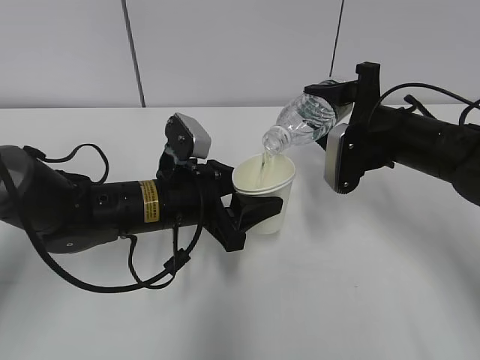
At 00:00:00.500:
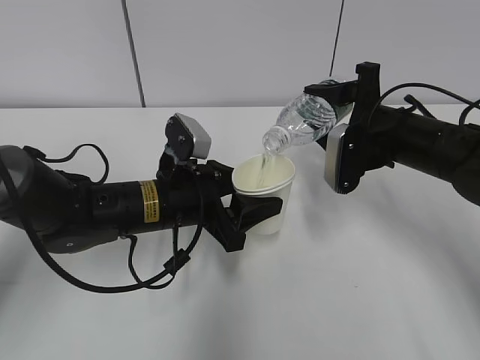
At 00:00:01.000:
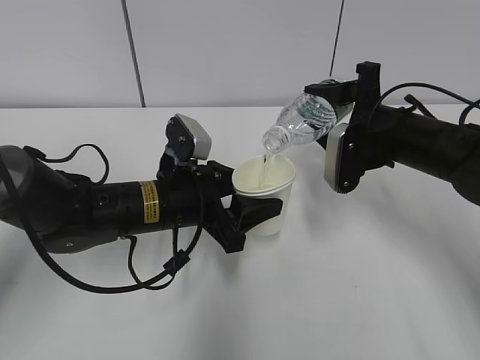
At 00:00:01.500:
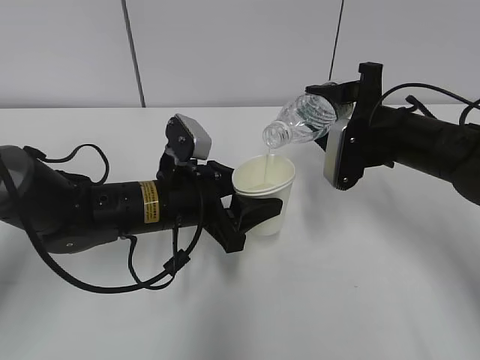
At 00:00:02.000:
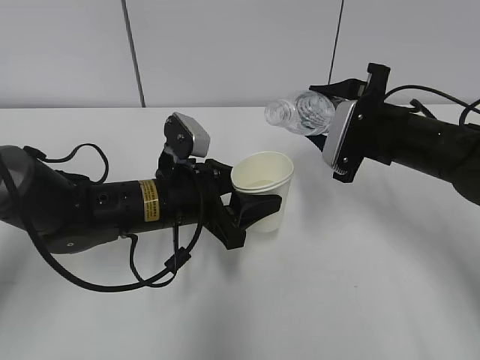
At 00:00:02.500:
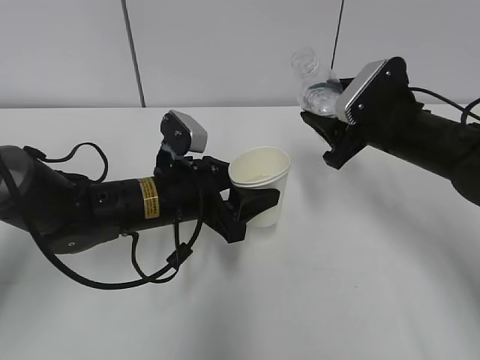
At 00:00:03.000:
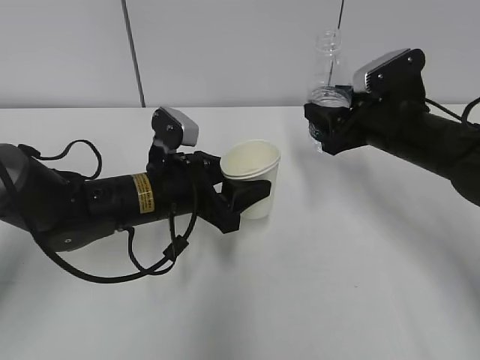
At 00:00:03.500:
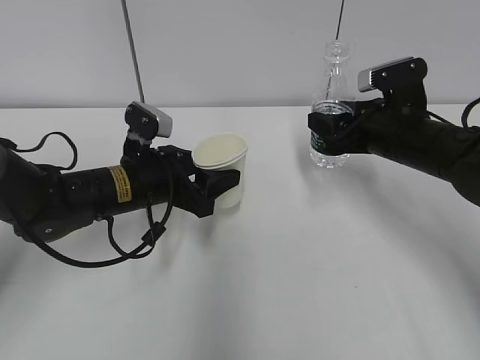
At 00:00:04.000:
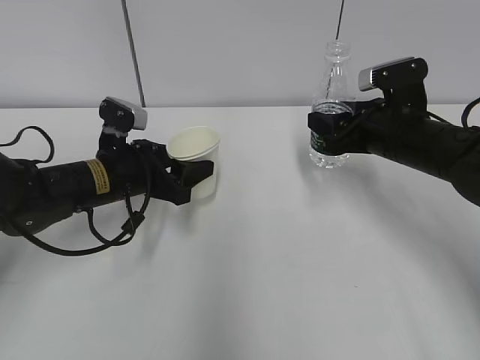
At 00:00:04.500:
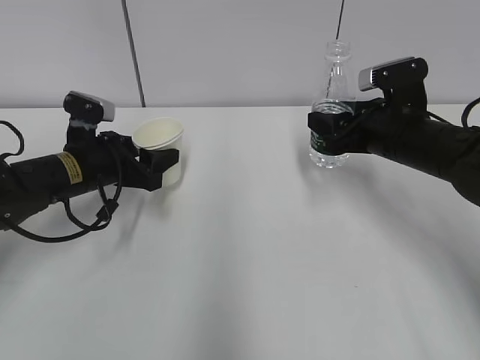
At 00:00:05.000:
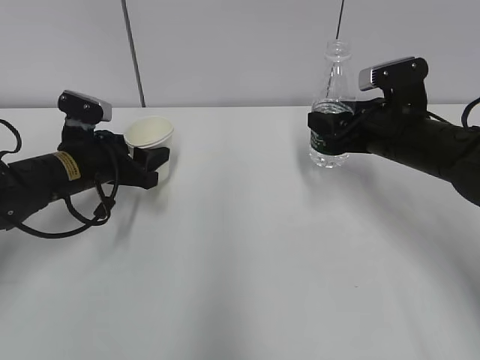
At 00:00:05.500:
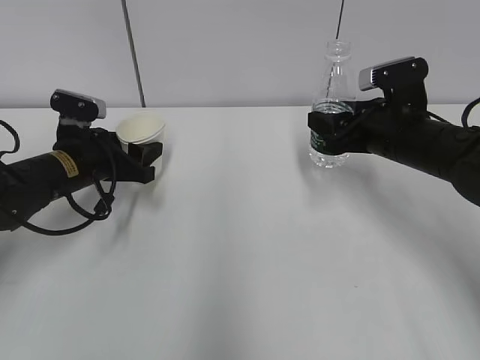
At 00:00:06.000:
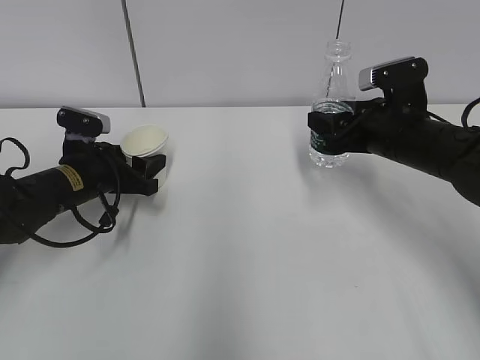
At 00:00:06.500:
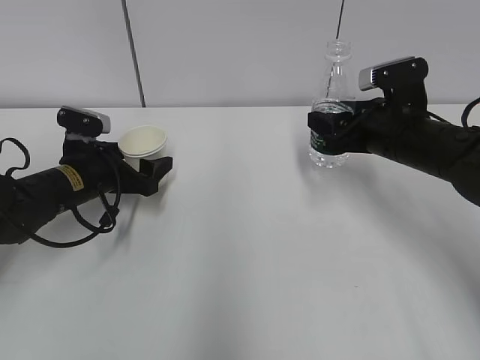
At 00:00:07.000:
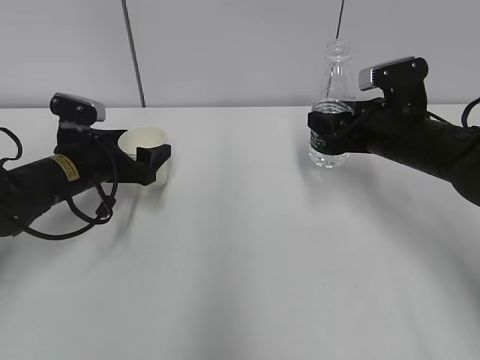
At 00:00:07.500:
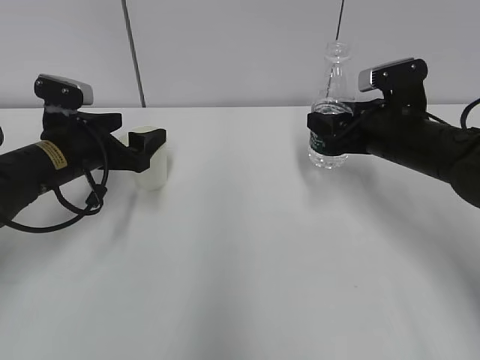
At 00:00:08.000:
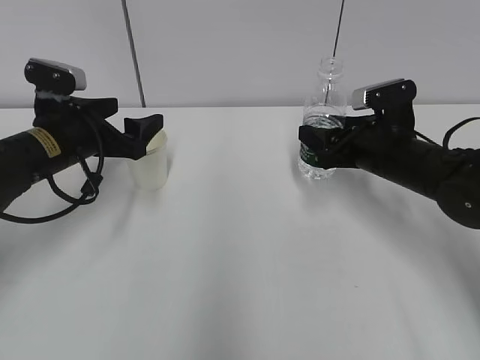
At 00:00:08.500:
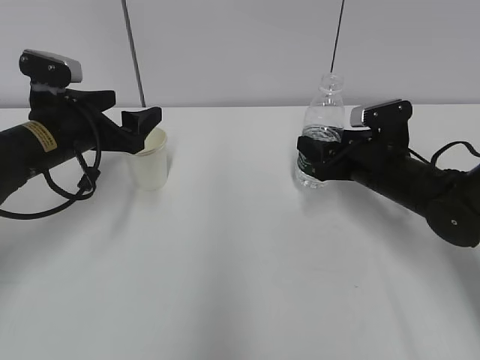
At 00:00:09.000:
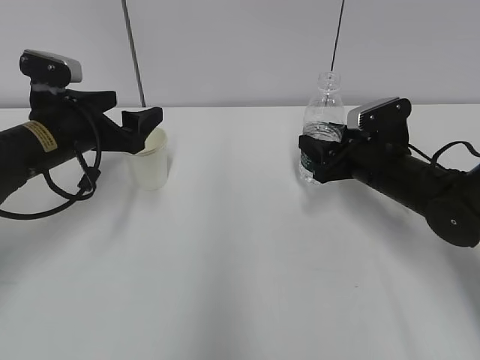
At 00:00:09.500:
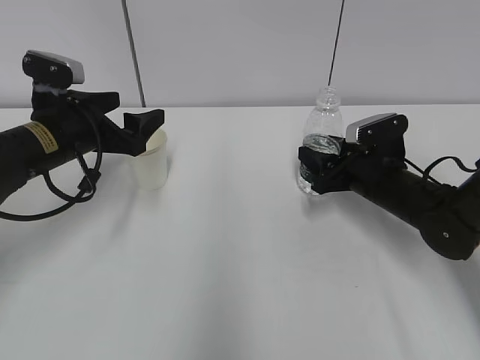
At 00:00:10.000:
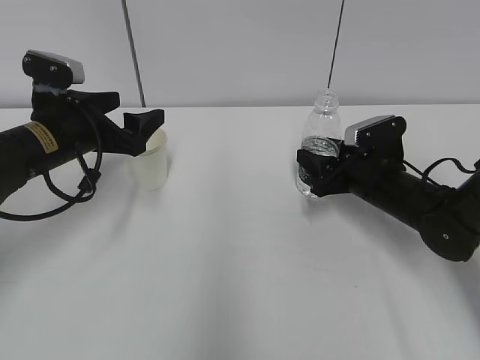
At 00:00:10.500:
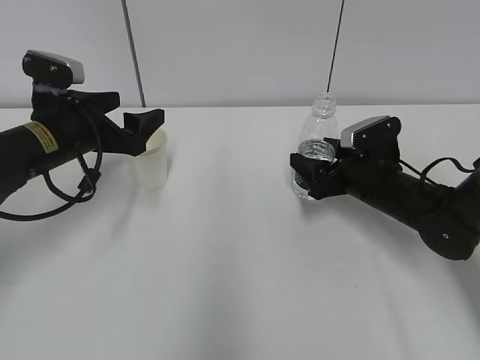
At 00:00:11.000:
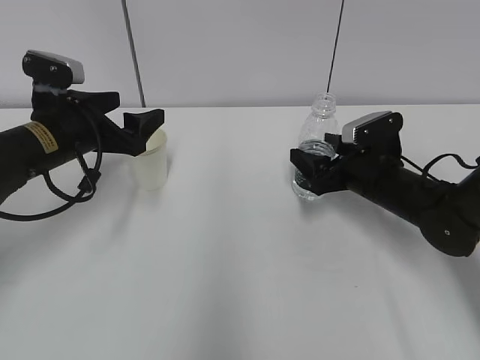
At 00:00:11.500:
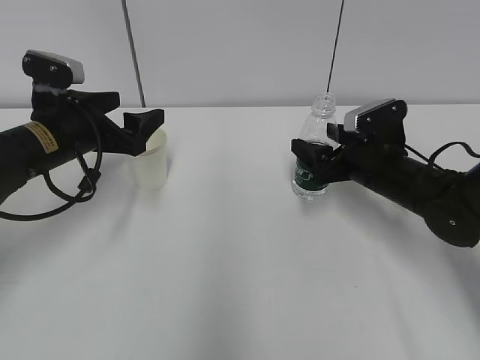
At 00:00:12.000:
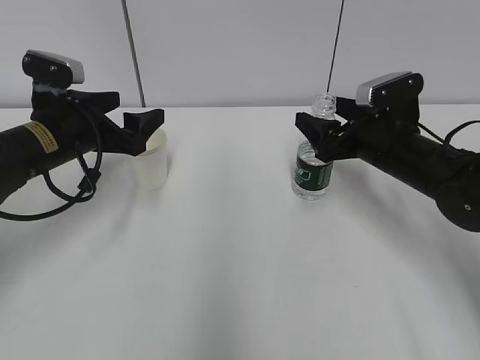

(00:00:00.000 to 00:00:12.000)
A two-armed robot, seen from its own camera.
Step, 00:00:00.500 - 00:00:03.500: Place the water bottle with the right hand.
00:00:00.000 - 00:00:02.000: The grippers stay close to where they were, moving slightly.
00:00:02.000 - 00:00:04.000: The left gripper shifts some 5 cm to the left.
00:00:04.000 - 00:00:06.000: The left gripper heads to the left, covering some 5 cm.
00:00:06.000 - 00:00:08.000: The left gripper heads upward, covering some 5 cm, and opens up.
00:00:08.000 - 00:00:10.000: The right gripper is displaced downward by approximately 5 cm.
00:00:10.000 - 00:00:12.000: The right gripper travels upward by some 5 cm, and opens its fingers.

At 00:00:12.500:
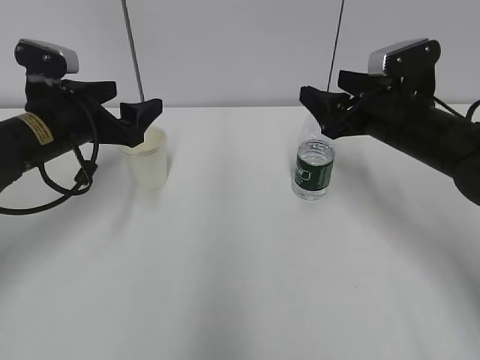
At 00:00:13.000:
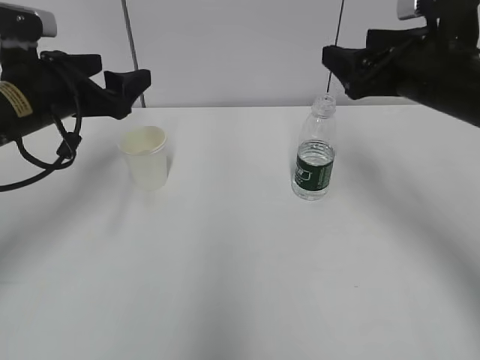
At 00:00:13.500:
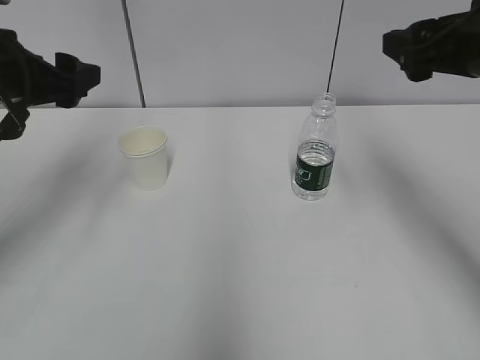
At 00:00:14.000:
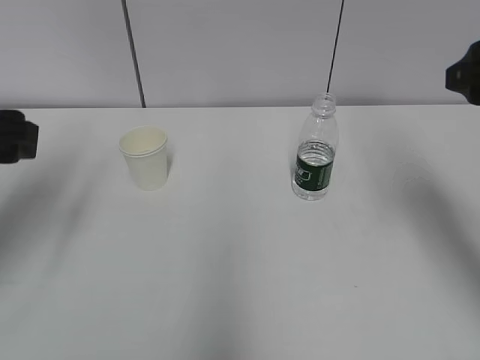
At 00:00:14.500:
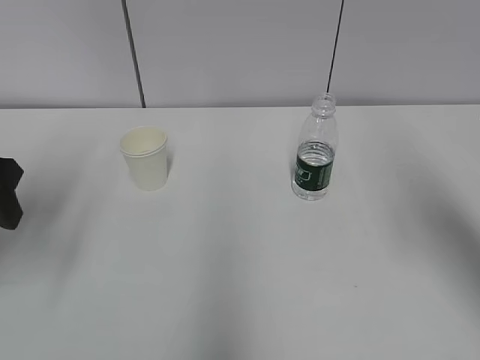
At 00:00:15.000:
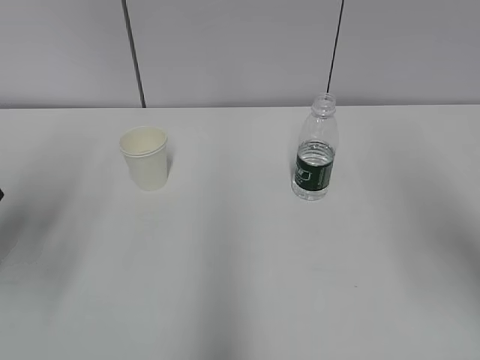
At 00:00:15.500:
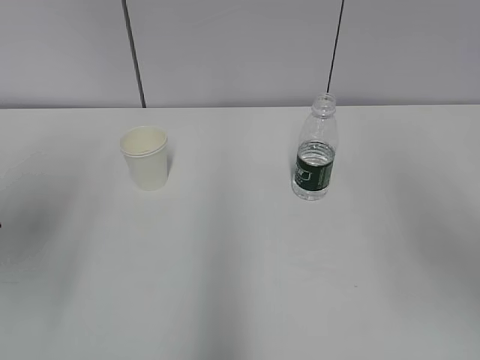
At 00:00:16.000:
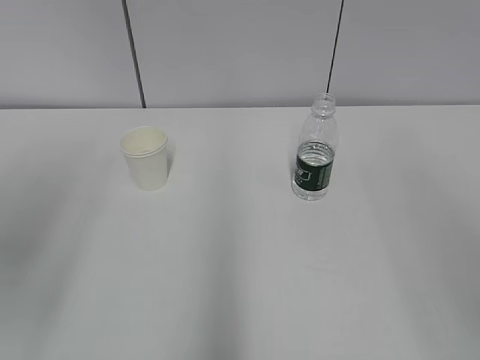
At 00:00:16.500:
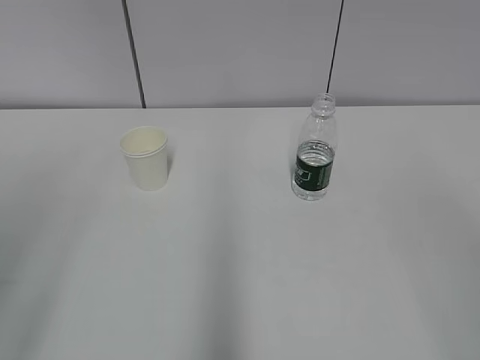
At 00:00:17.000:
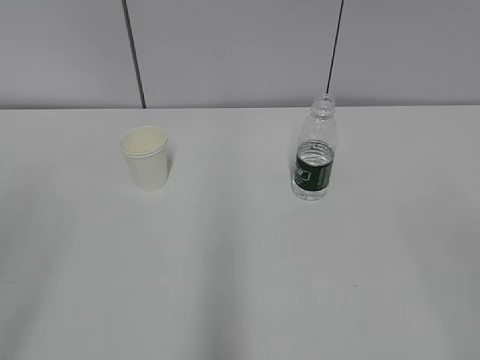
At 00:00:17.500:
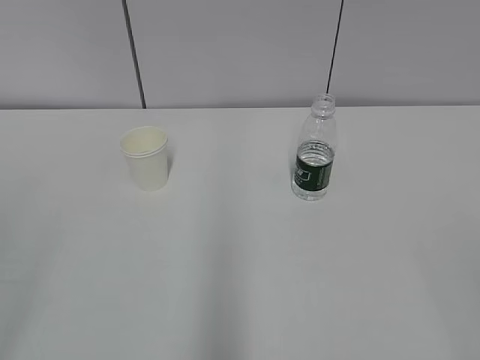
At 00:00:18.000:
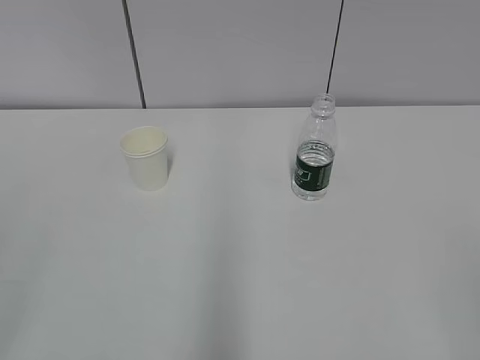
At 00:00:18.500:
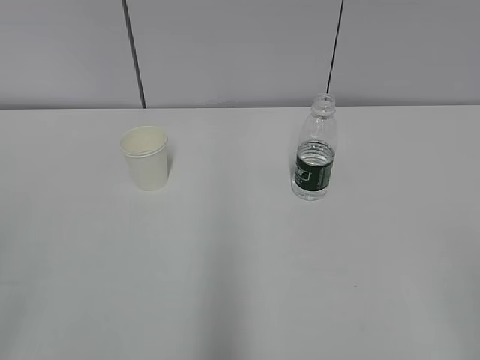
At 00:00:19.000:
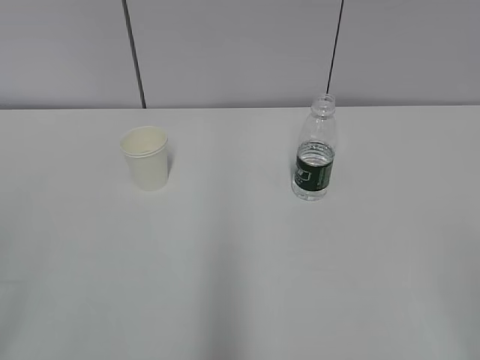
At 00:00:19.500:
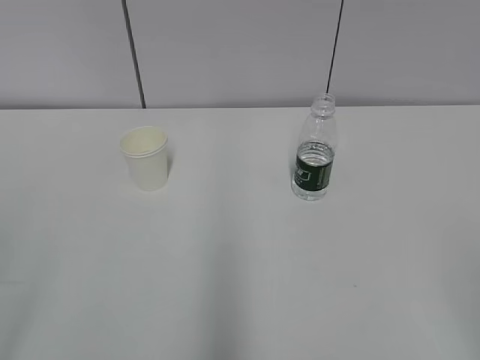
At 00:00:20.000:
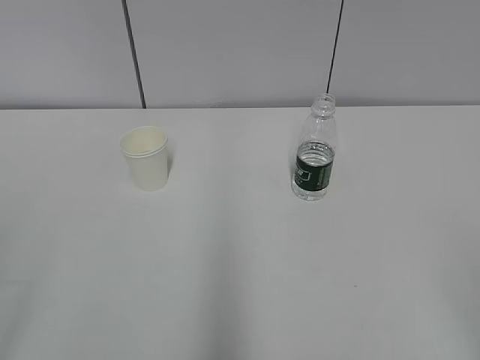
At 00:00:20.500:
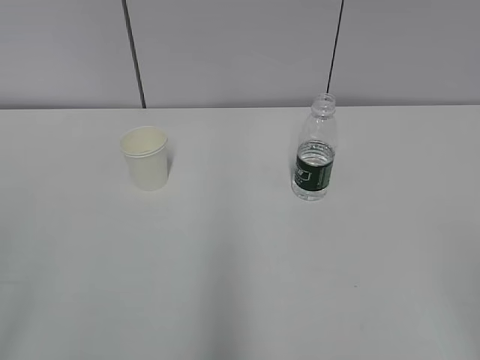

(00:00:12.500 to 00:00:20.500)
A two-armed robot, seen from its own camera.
00:00:12.500 - 00:00:14.500: The right gripper is displaced backward and upward by roughly 20 cm; the left gripper goes roughly 15 cm backward, upward and to the left.
00:00:14.500 - 00:00:16.500: The right gripper heads backward, covering roughly 20 cm, while the left gripper heads backward and upward, covering approximately 20 cm.
